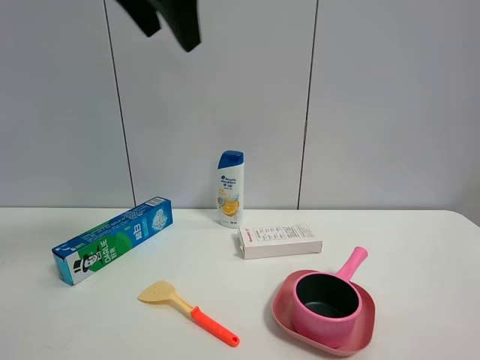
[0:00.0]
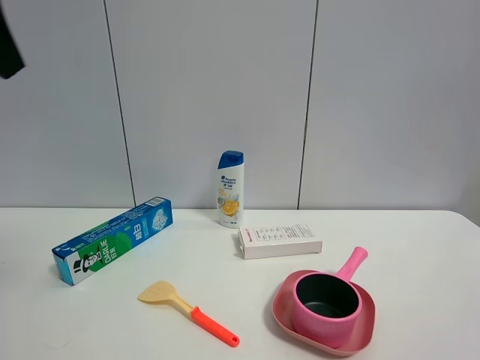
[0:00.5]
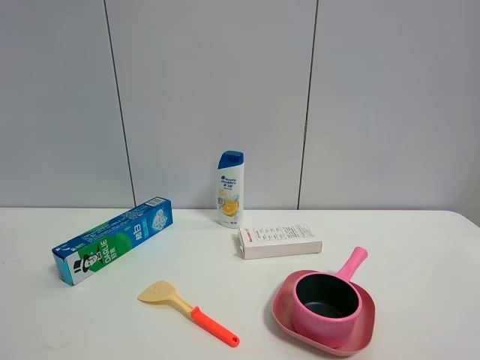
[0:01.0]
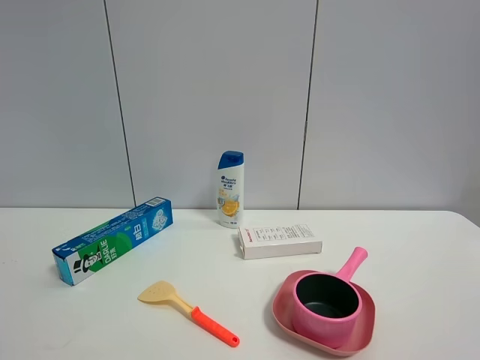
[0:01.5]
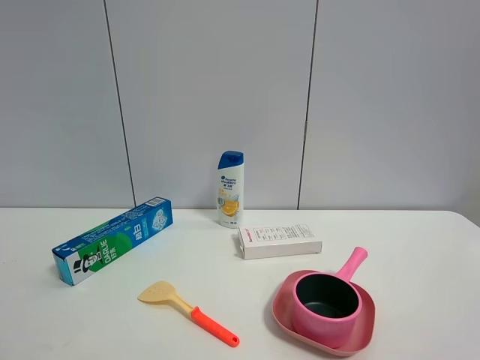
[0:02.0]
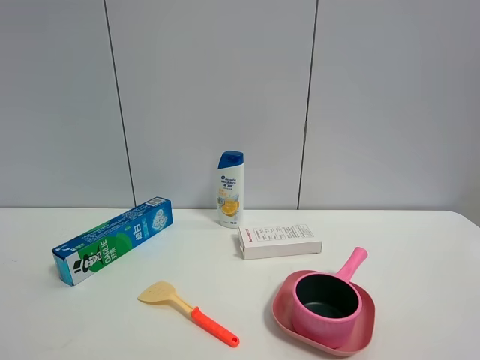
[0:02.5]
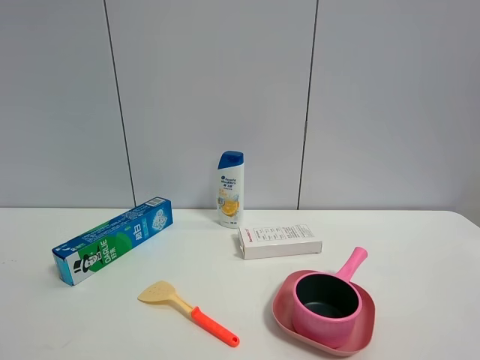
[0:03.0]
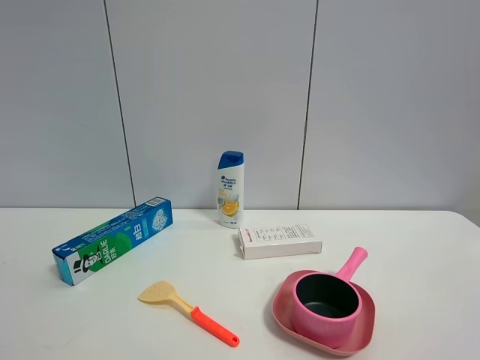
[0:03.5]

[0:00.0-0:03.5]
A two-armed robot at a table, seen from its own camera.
Task of the whole recording: the gripper move the object.
0:00.0 to 0:02.0: The left gripper shifts about 40 cm backward, to the left and downward.

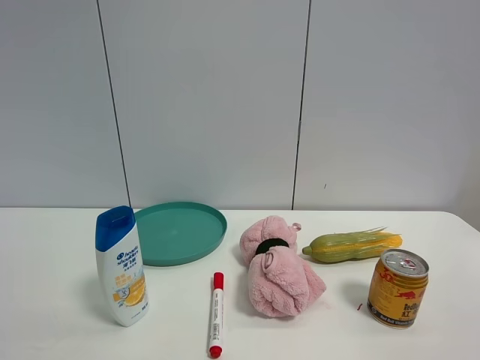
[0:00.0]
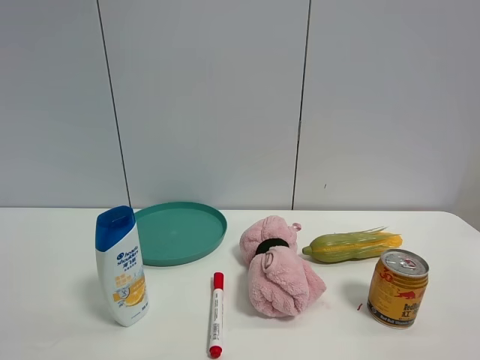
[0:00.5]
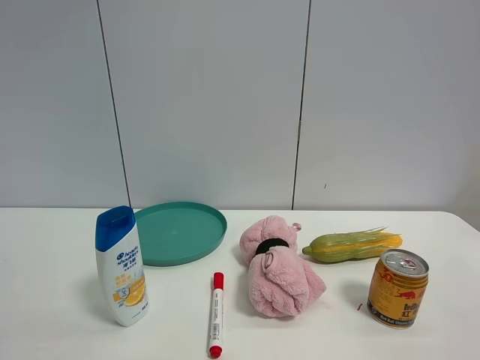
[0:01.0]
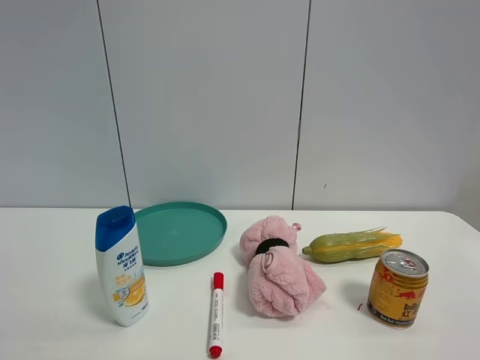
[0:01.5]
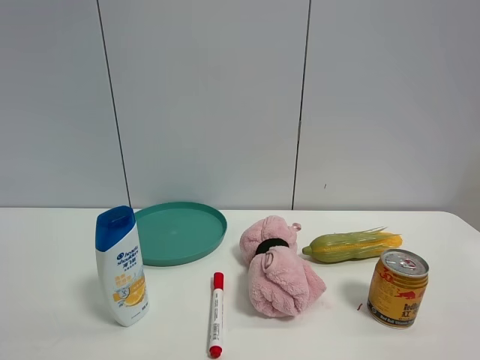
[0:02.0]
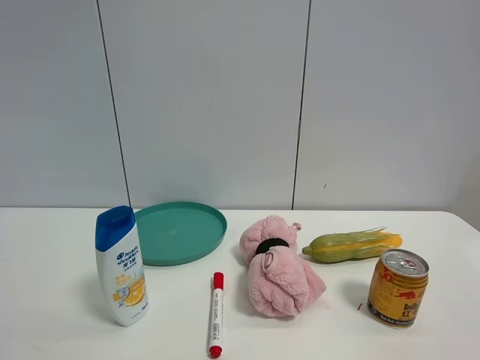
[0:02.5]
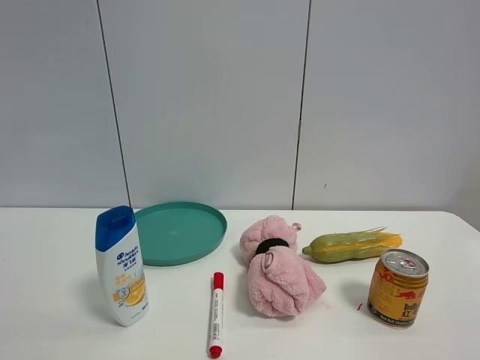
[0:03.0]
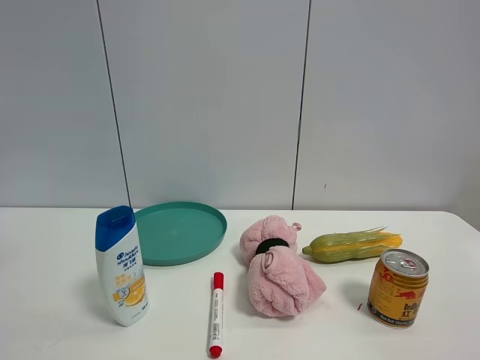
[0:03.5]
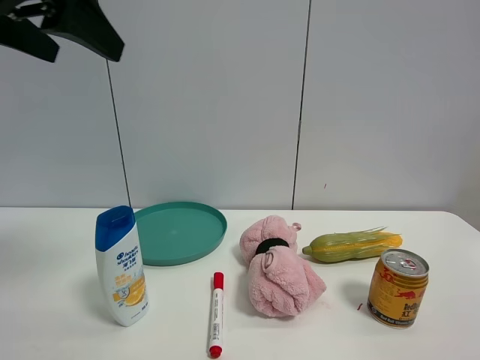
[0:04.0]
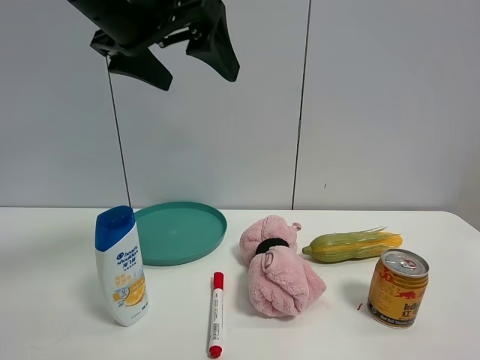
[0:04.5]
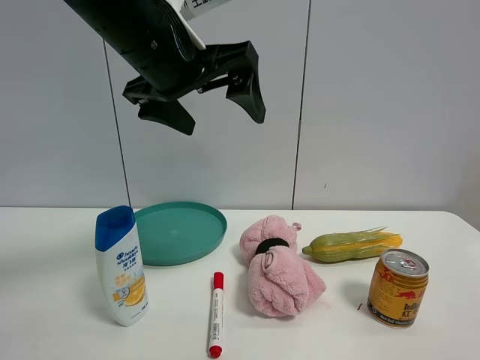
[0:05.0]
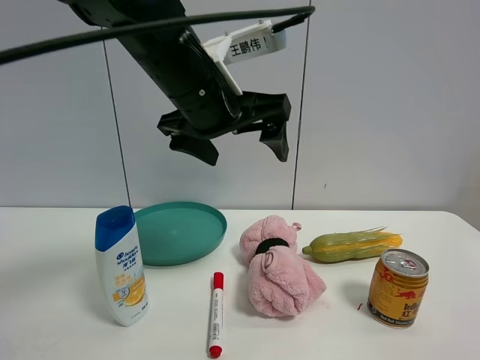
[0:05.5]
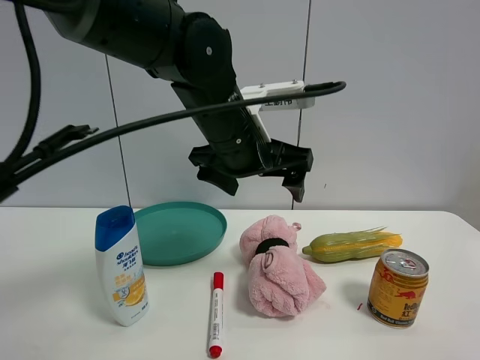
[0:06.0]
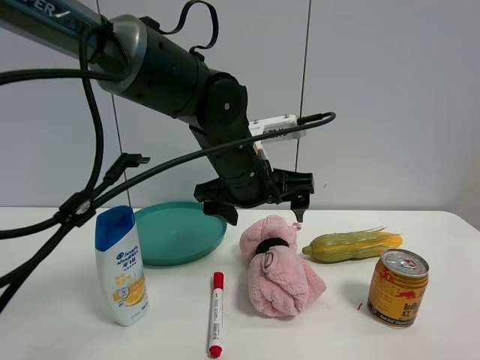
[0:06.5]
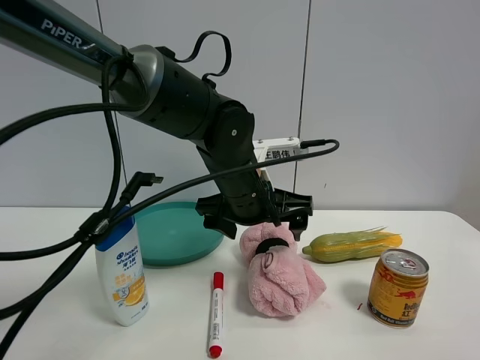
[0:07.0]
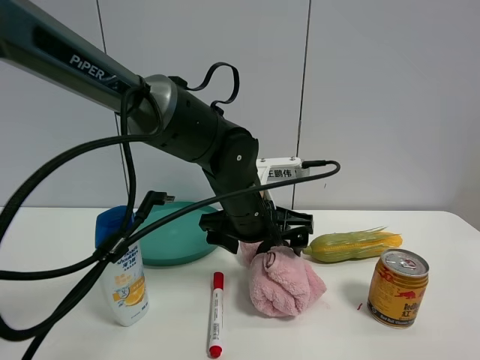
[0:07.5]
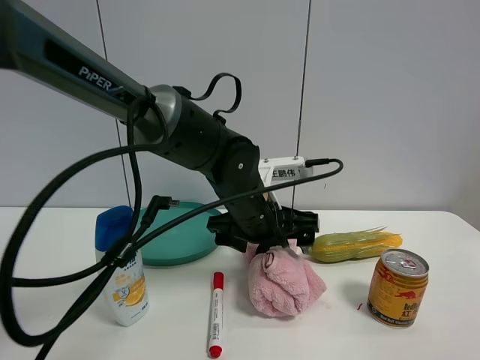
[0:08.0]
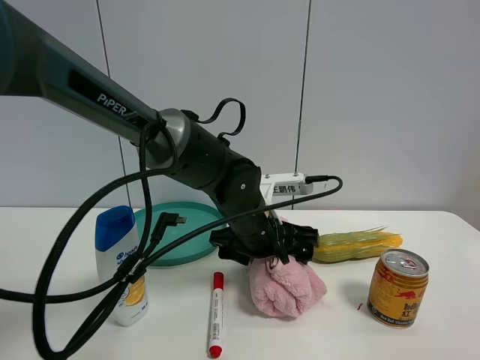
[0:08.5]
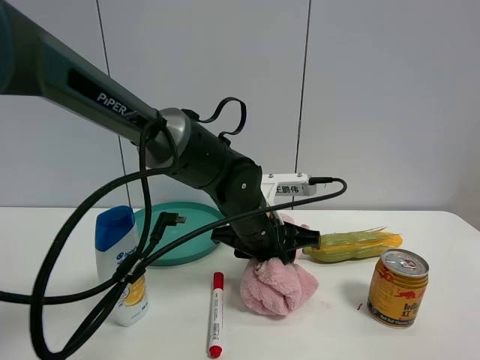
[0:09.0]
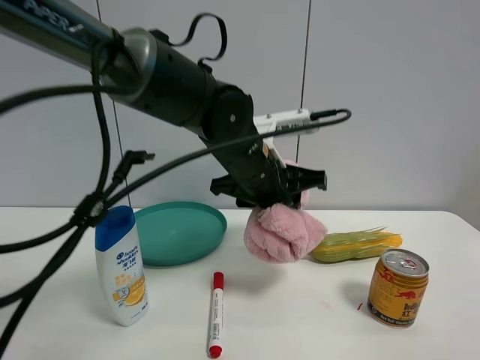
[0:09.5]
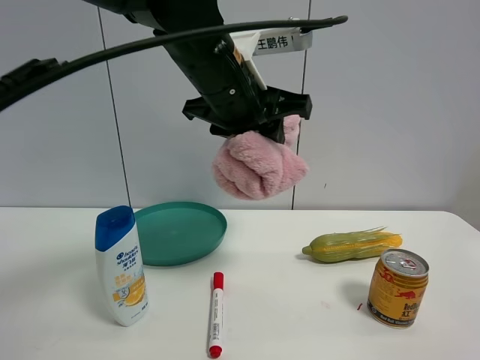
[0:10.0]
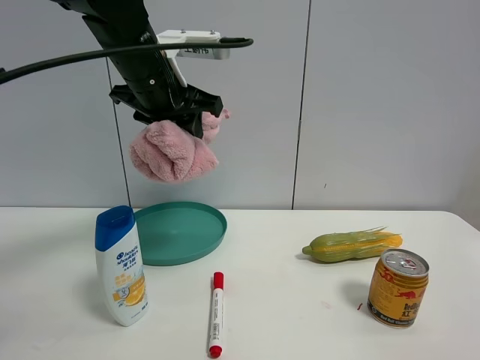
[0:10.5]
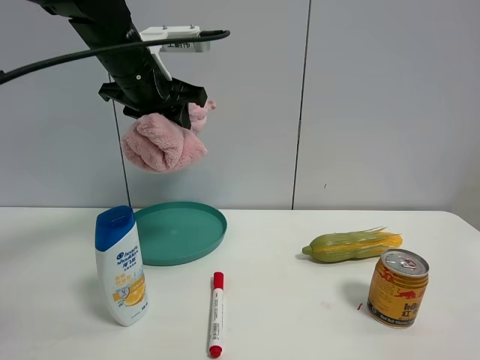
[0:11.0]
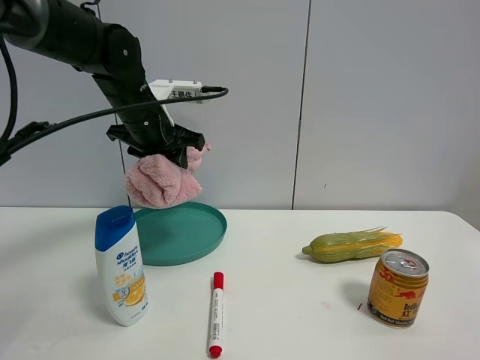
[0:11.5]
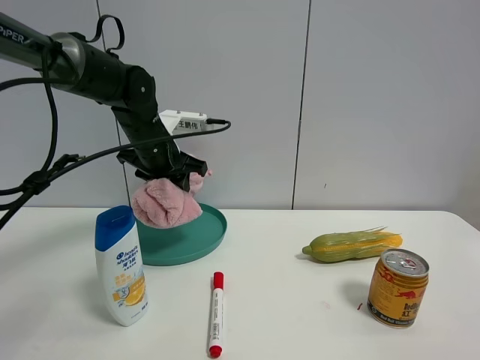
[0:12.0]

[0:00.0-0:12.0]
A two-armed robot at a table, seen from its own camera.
Task of the whole recording: the gripper move the object.
Step, 0:00.0 to 0:08.5: Grasp the pink towel with the left gripper.
0:02.0 to 0:04.0: The left gripper travels forward by some 25 cm.
0:04.0 to 0:06.0: The left gripper heads to the right, downward and forward, covering roughly 25 cm.
0:06.0 to 0:08.0: The left gripper goes roughly 10 cm downward.
0:08.0 to 0:10.0: The left gripper shifts roughly 15 cm upward, and closes its fingers.
0:10.0 to 0:12.0: The left gripper travels forward, to the left and downward by some 20 cm.

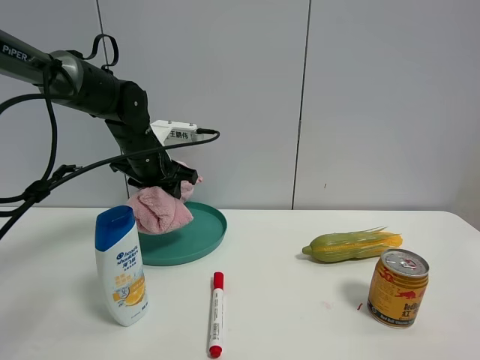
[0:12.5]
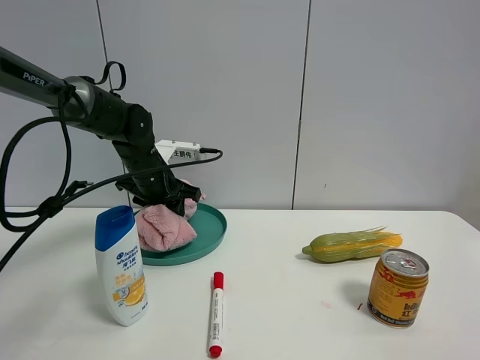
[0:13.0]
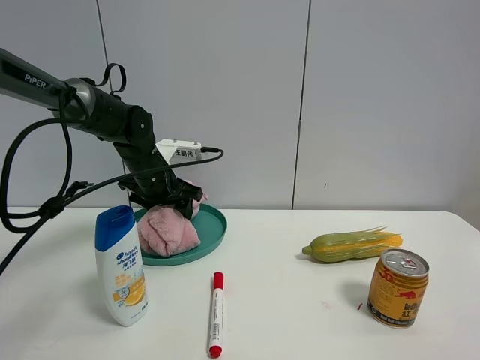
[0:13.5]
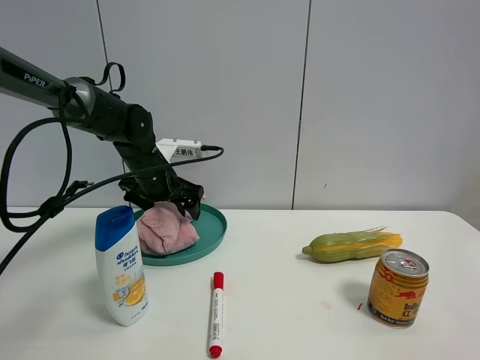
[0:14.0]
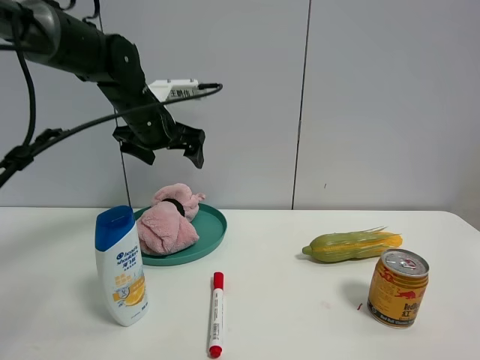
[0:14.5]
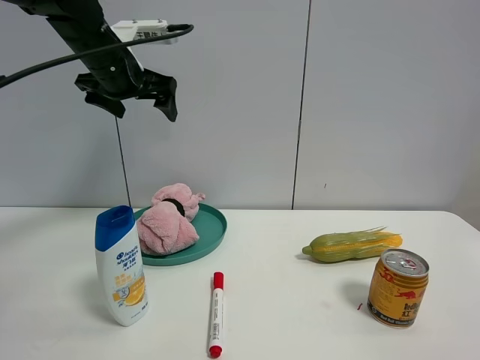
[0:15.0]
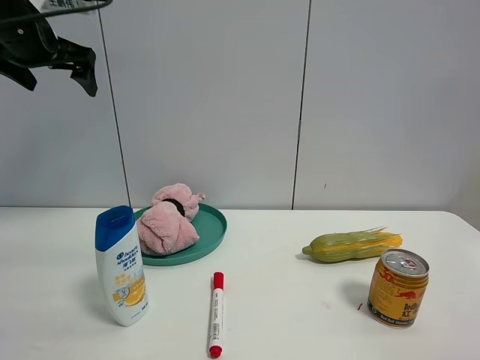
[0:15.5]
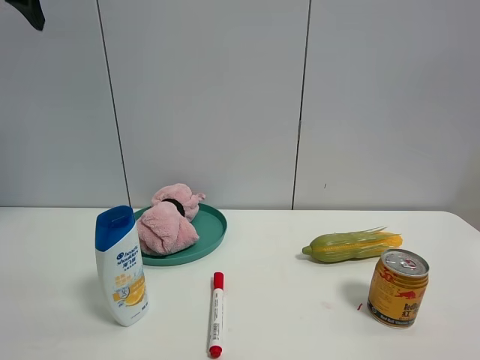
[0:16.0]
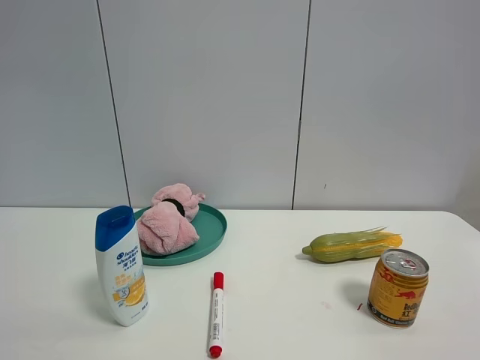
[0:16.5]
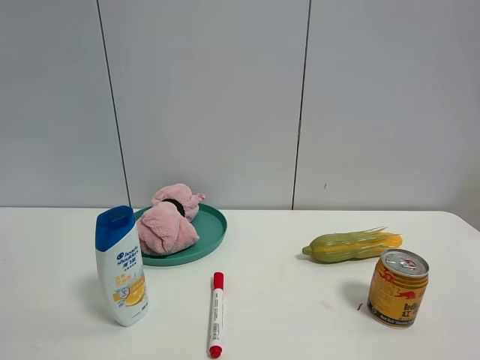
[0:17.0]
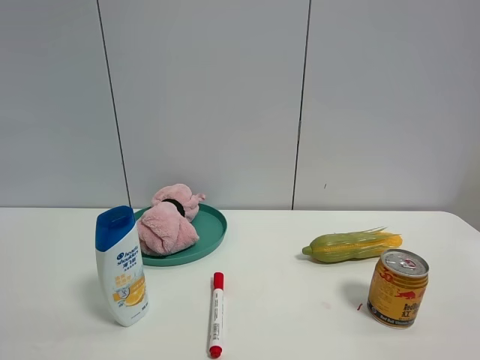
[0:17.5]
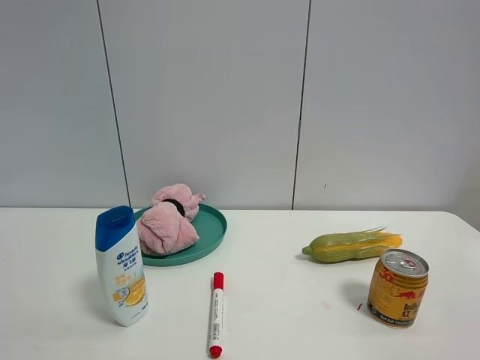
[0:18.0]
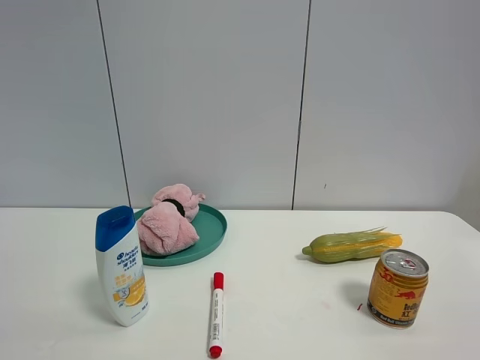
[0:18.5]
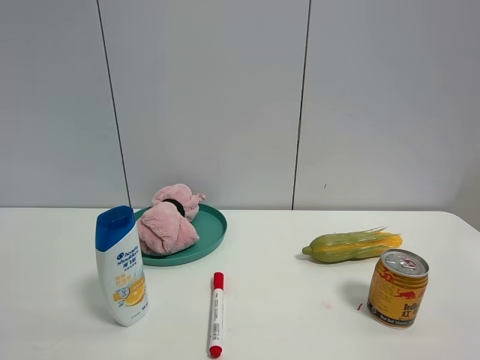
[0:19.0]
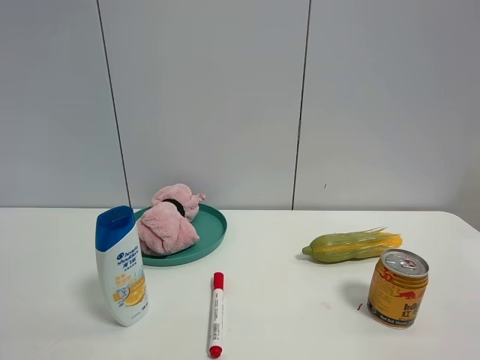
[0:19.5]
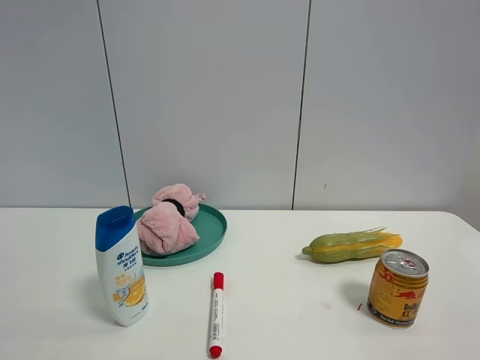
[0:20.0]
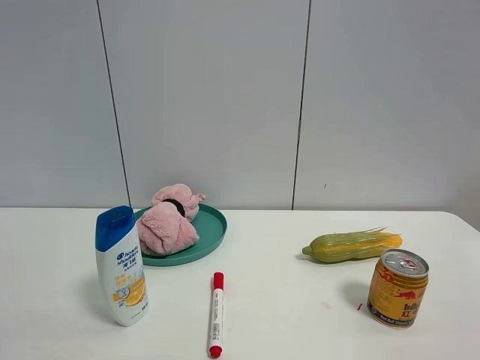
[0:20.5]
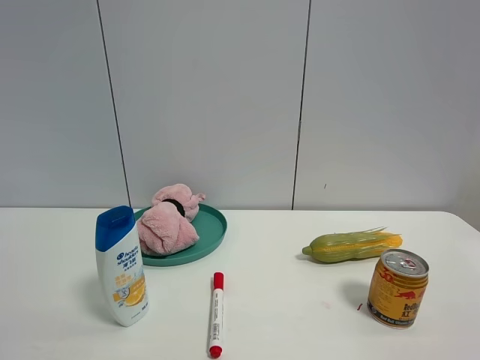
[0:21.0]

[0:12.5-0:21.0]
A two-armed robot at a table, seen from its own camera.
Task of the whole recording: the gripper move the object.
0:12.5 to 0:14.5: The left gripper travels upward by some 5 cm, and opens its fingers.
0:14.5 to 0:16.5: The left gripper travels upward, backward and to the left by roughly 40 cm.
0:19.0 to 0:21.0: Both grippers stay about where they are.

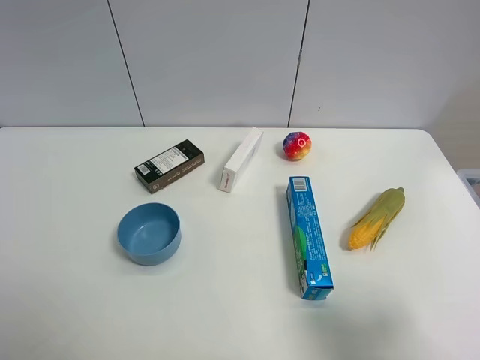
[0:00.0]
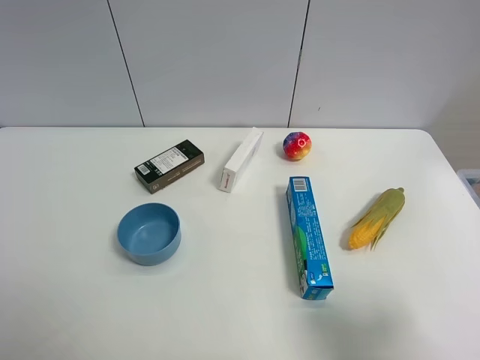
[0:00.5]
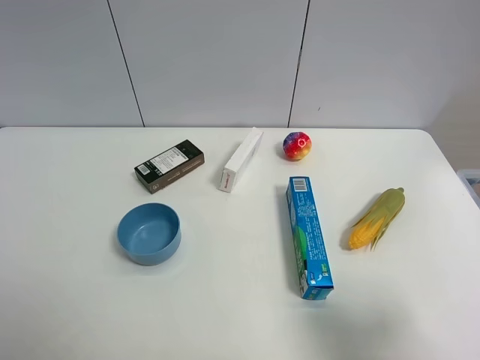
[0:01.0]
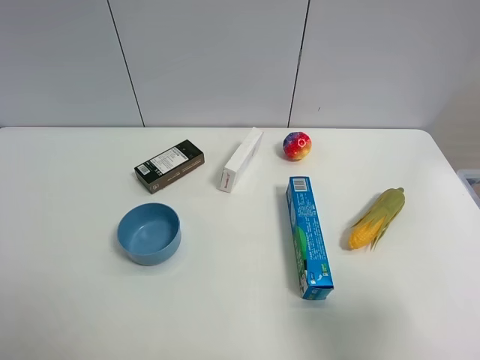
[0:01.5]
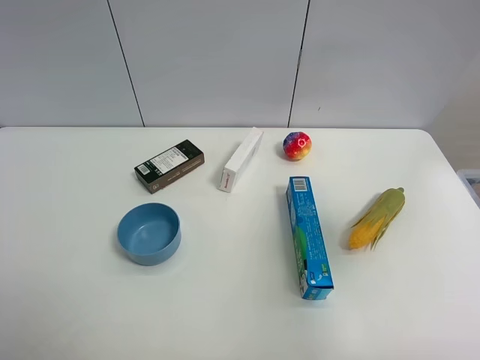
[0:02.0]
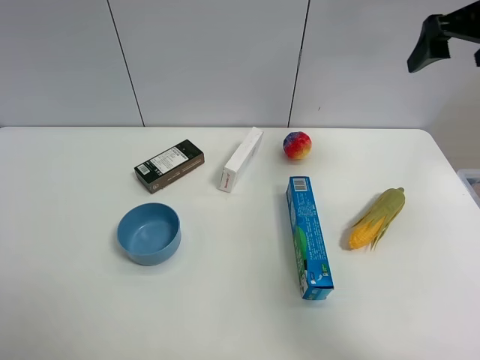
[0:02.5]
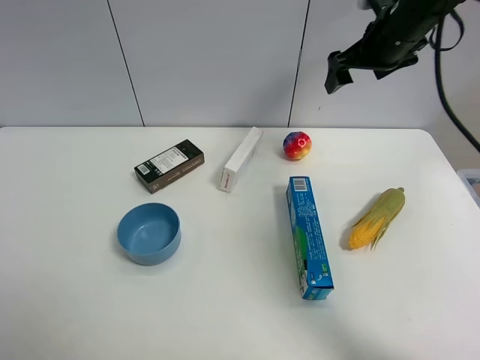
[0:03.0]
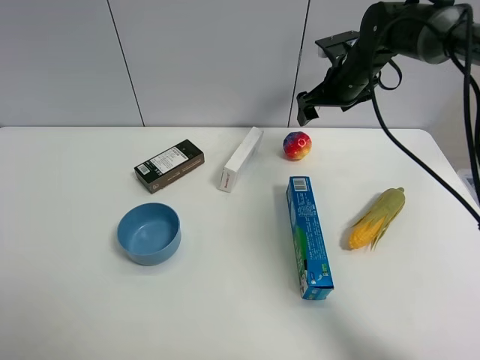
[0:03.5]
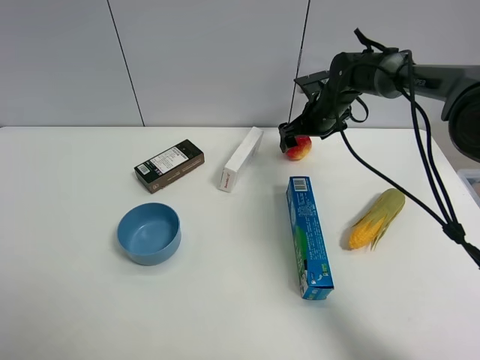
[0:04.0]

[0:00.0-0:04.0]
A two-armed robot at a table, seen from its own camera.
Task of the whole recording: the gripper move the object.
0:00.0 to 0:02.0: The right gripper moves forward and upward, approximately 20 cm.
0:02.0 to 0:04.0: The right gripper goes some 40 cm forward and downward.
